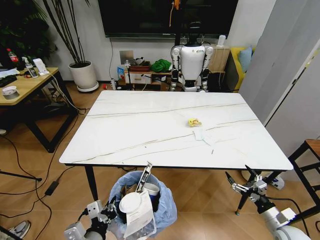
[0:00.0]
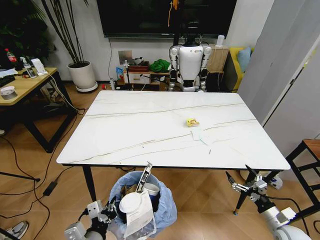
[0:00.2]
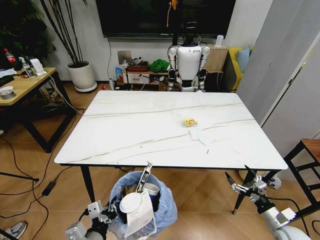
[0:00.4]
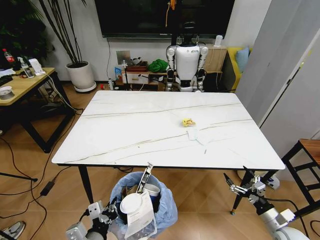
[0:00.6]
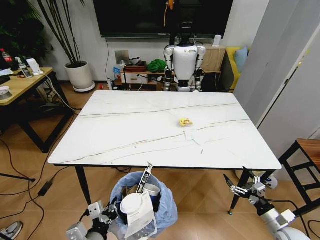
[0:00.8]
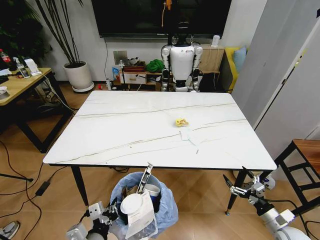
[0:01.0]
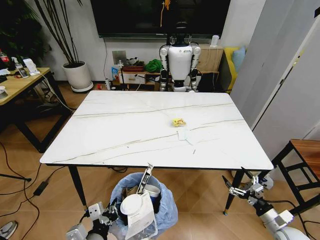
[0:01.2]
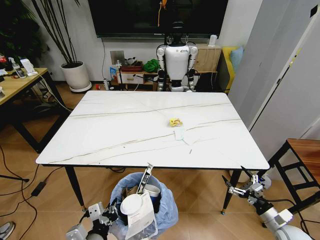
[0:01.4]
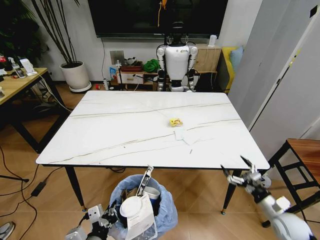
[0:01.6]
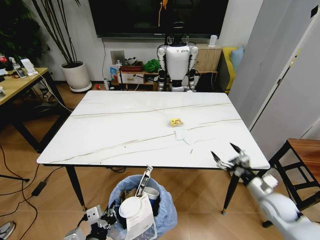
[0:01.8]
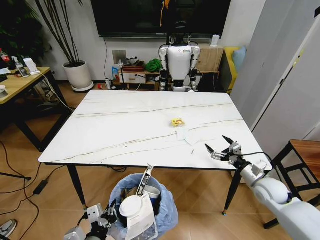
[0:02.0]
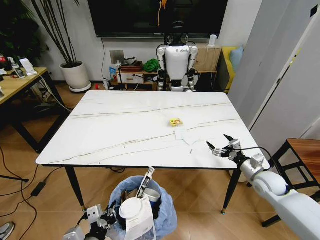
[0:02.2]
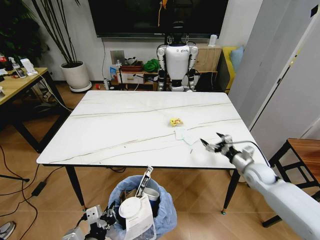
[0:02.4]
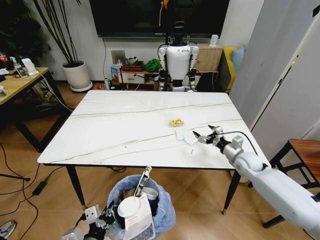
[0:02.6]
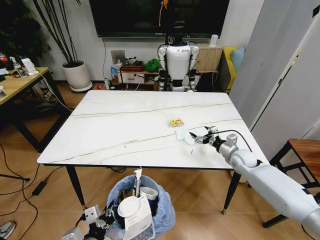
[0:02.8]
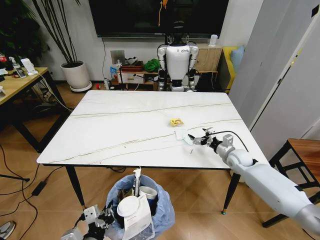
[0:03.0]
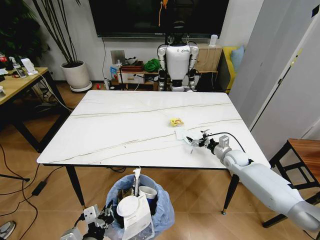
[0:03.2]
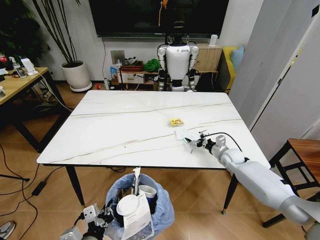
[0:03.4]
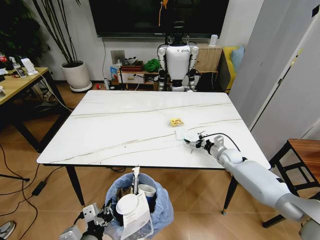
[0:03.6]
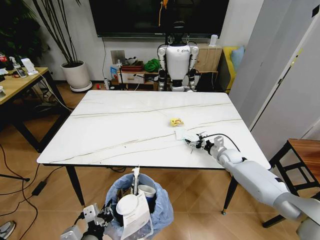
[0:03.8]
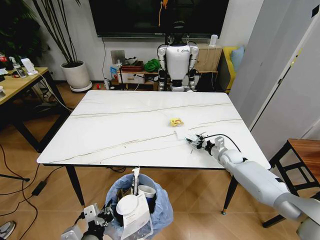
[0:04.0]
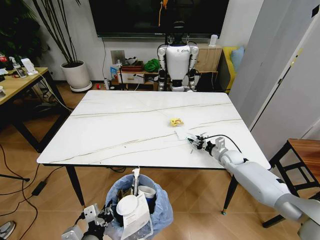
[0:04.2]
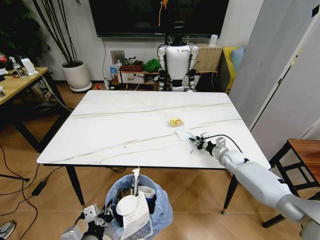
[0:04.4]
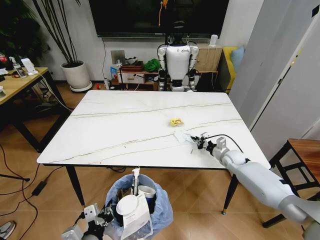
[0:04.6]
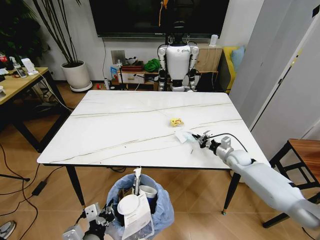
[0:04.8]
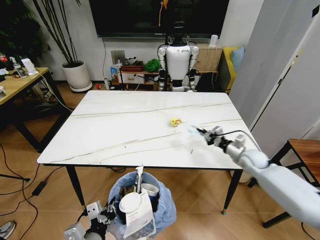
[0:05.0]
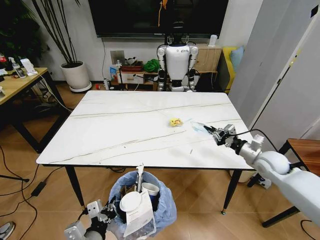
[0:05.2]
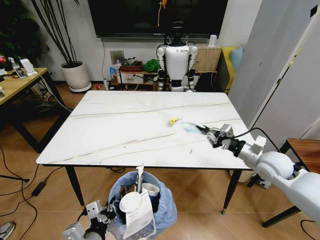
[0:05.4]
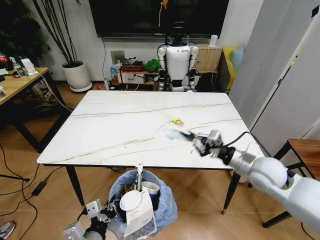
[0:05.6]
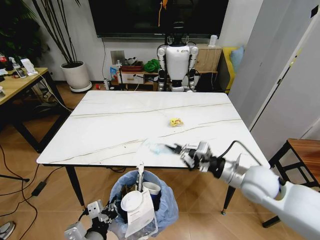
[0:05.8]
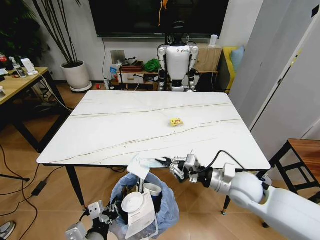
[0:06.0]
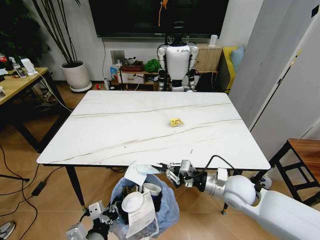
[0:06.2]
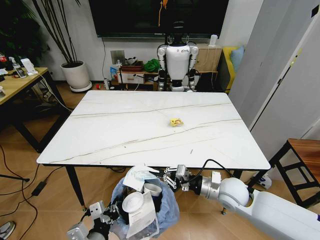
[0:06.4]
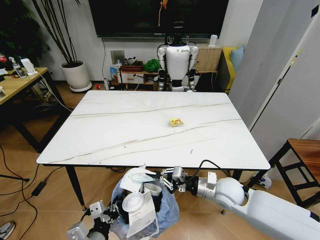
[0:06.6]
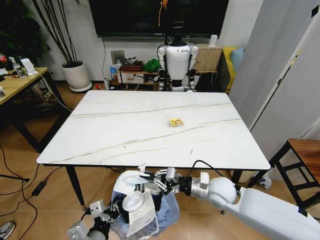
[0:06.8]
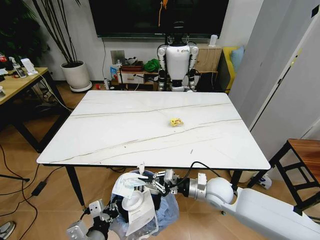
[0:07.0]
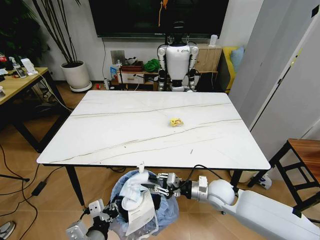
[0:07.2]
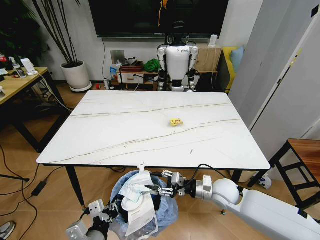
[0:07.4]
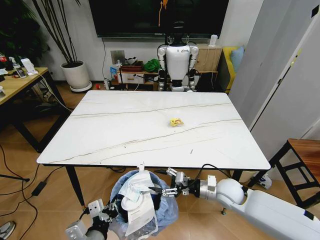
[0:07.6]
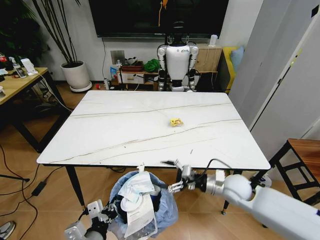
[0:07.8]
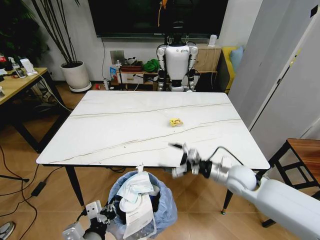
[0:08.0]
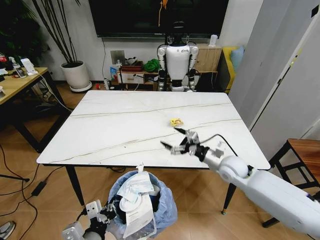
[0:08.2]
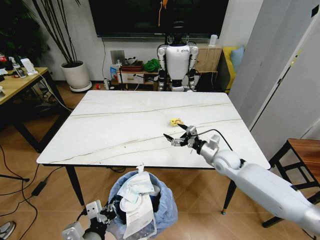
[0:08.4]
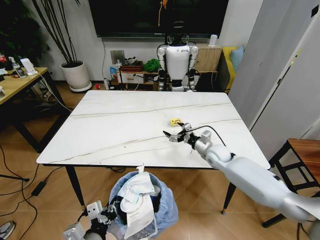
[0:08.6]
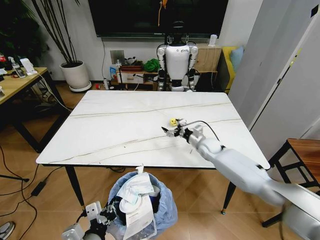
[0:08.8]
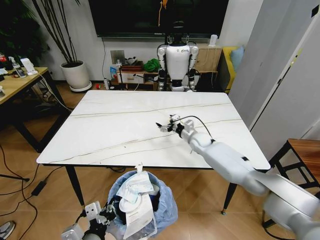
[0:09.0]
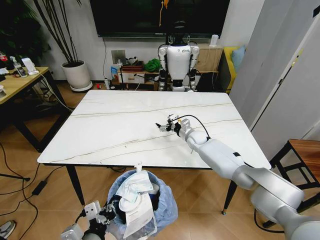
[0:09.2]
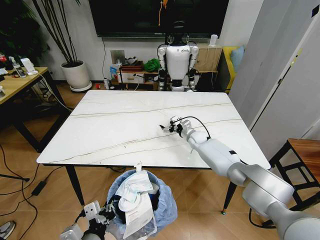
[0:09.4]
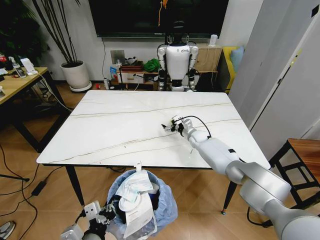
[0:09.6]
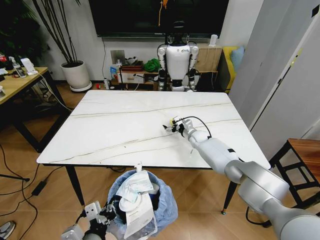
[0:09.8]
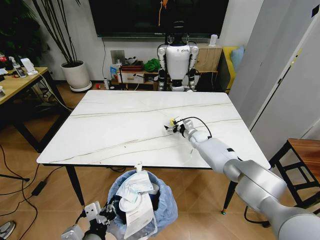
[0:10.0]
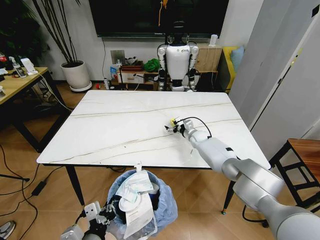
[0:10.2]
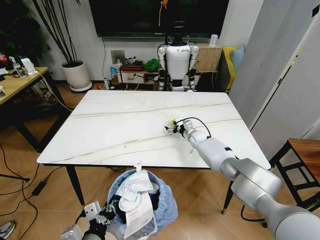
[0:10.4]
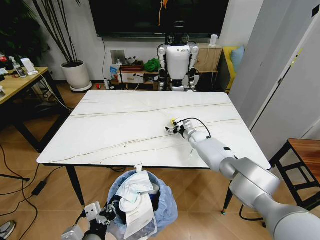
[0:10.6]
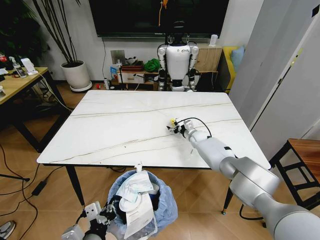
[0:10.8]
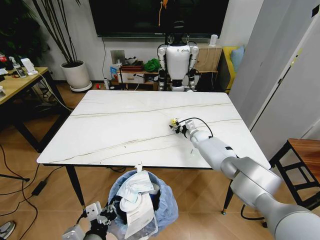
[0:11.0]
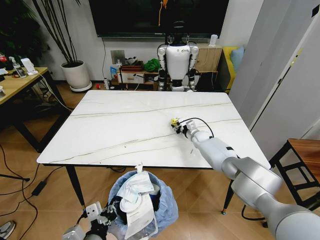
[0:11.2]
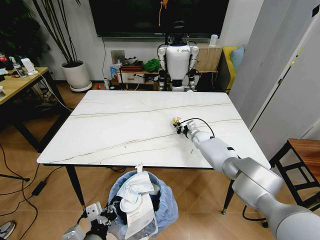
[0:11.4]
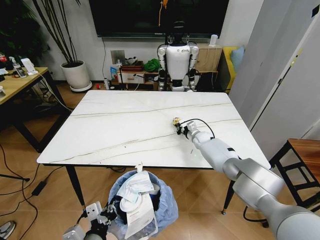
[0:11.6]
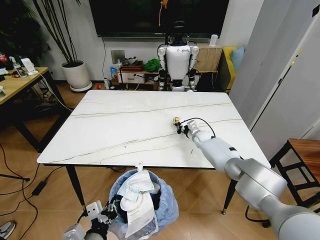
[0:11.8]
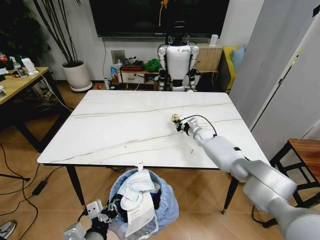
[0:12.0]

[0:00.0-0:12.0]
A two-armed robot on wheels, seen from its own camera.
Task of the whole recording: Pick up the trash bin and place the trash from the table into it.
0:01.6 to 0:03.0: The right gripper goes about 30 cm forward and to the left.
0:03.0 to 0:04.4: The right gripper shifts by approximately 5 cm, and closes its fingers.
0:04.4 to 0:06.0: The right gripper heads backward, upward and to the left, covering approximately 25 cm.
0:06.0 to 0:07.6: The right gripper moves downward, about 10 cm, and opens.
0:07.6 to 0:09.0: The right gripper heads forward, covering some 25 cm, and opens its fingers.
0:09.0 to 0:10.4: The right gripper shifts by some 5 cm.
0:10.4 to 0:12.0: The right gripper closes.

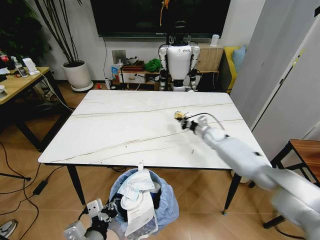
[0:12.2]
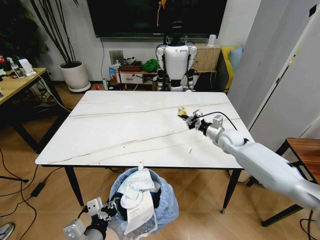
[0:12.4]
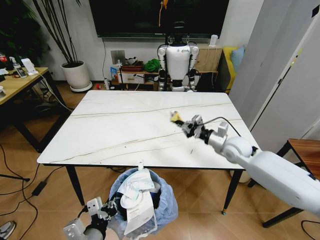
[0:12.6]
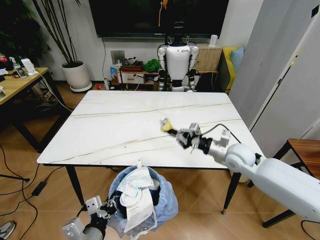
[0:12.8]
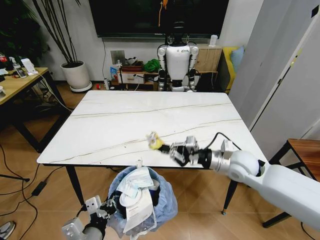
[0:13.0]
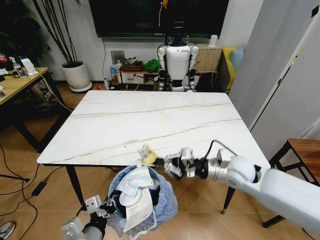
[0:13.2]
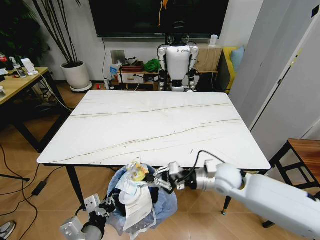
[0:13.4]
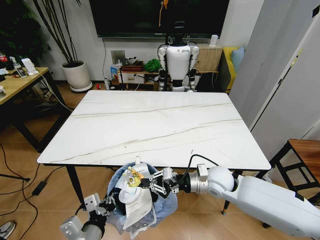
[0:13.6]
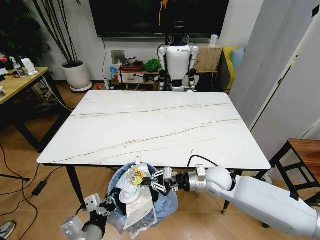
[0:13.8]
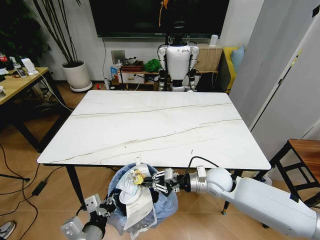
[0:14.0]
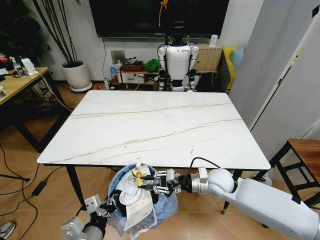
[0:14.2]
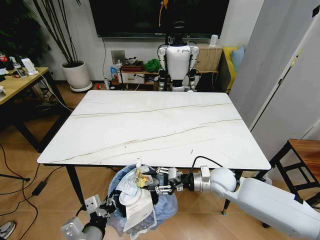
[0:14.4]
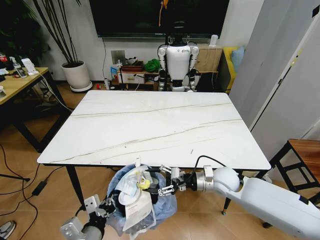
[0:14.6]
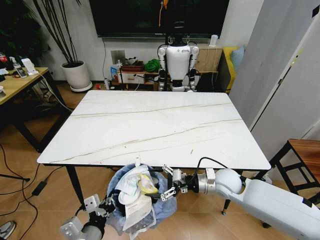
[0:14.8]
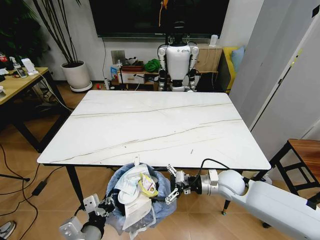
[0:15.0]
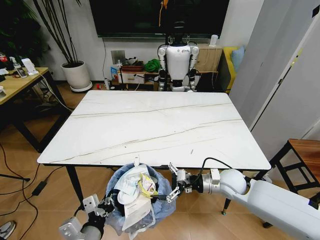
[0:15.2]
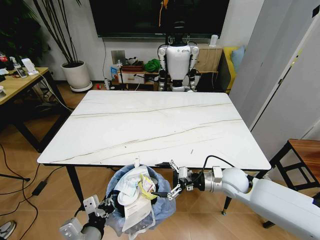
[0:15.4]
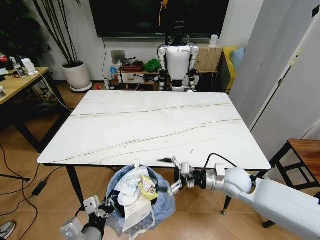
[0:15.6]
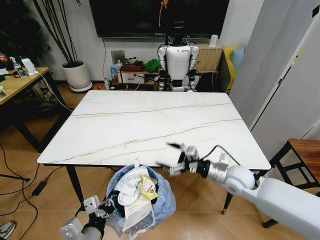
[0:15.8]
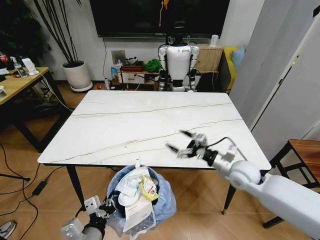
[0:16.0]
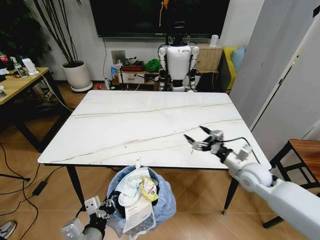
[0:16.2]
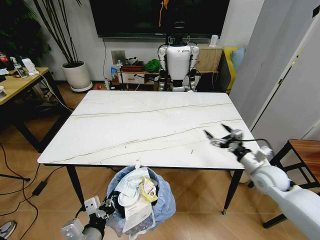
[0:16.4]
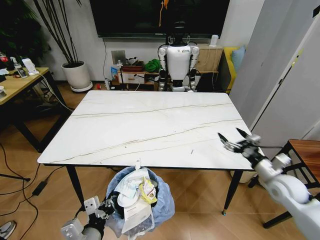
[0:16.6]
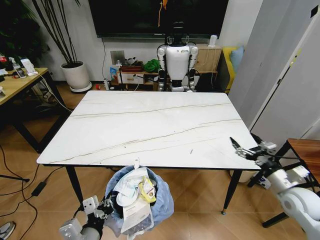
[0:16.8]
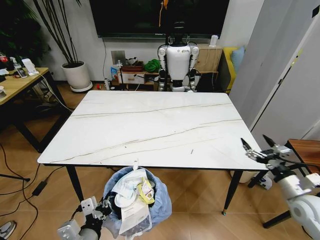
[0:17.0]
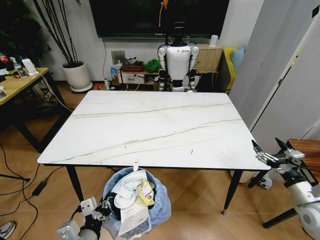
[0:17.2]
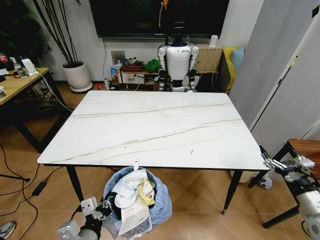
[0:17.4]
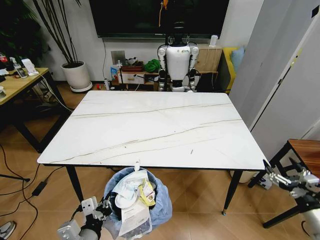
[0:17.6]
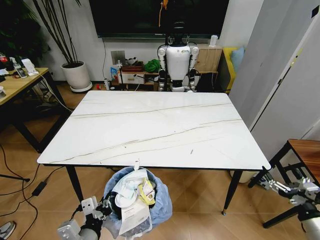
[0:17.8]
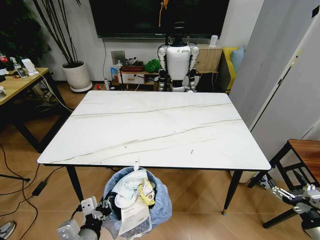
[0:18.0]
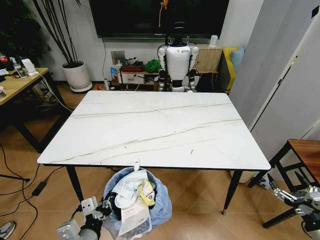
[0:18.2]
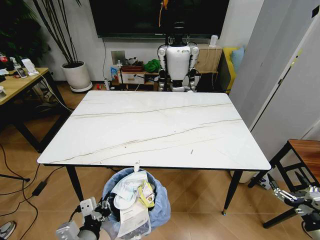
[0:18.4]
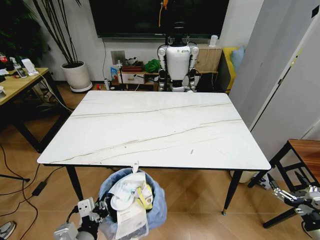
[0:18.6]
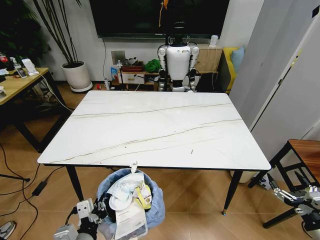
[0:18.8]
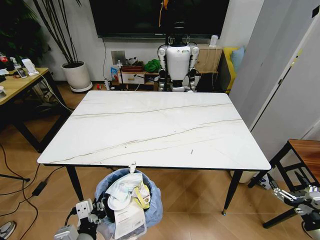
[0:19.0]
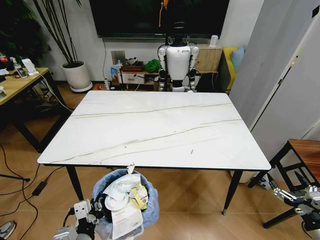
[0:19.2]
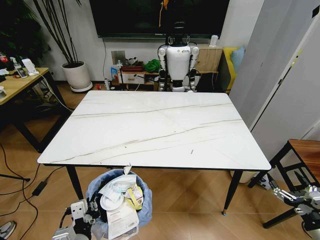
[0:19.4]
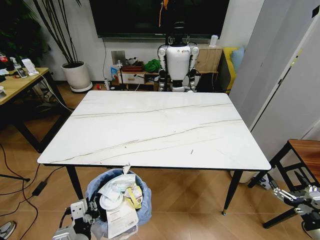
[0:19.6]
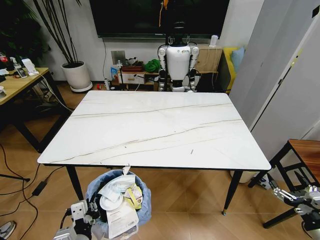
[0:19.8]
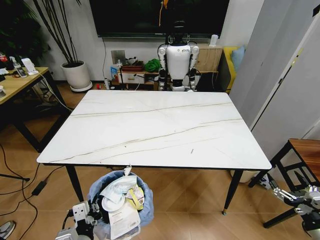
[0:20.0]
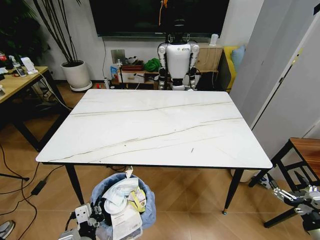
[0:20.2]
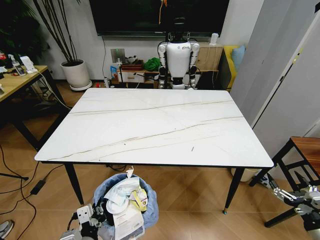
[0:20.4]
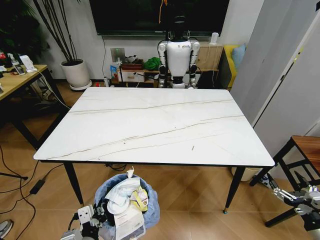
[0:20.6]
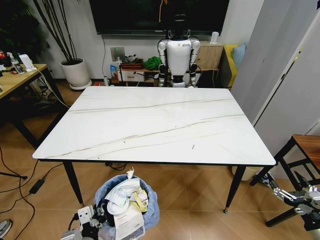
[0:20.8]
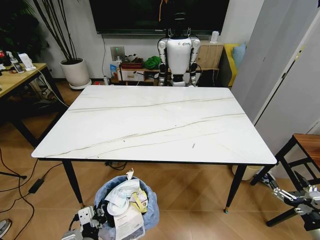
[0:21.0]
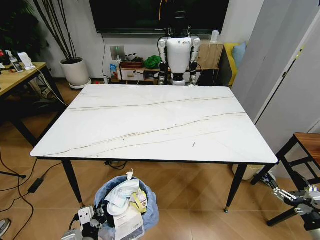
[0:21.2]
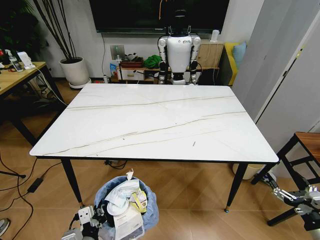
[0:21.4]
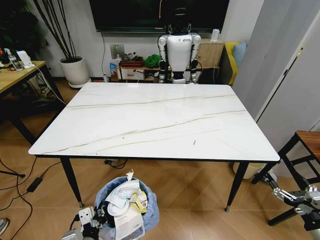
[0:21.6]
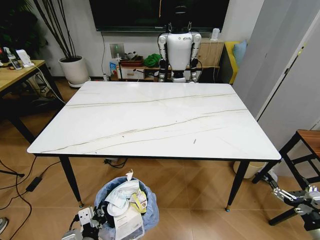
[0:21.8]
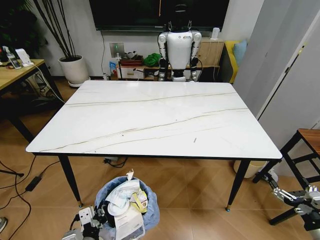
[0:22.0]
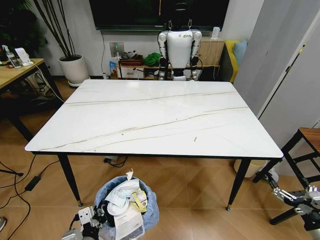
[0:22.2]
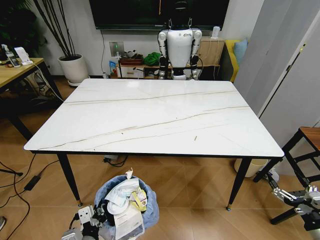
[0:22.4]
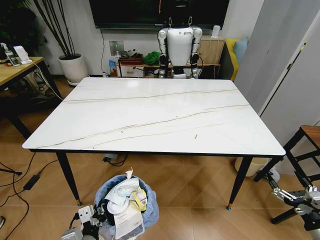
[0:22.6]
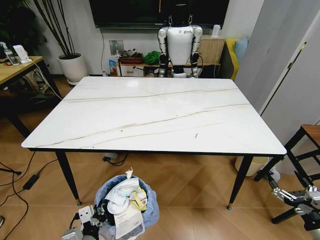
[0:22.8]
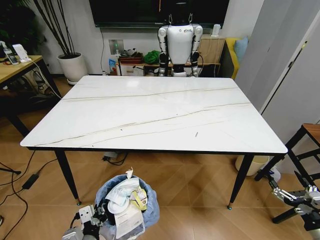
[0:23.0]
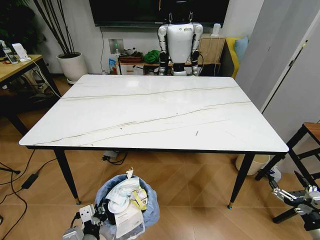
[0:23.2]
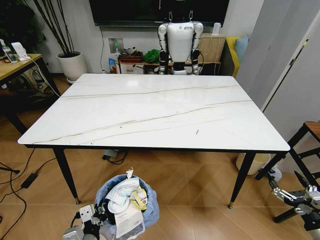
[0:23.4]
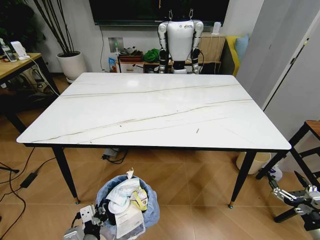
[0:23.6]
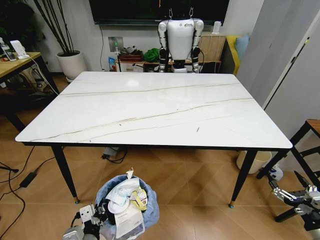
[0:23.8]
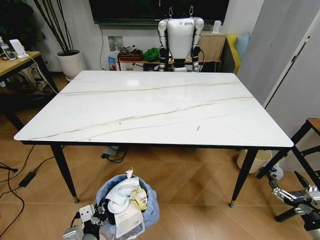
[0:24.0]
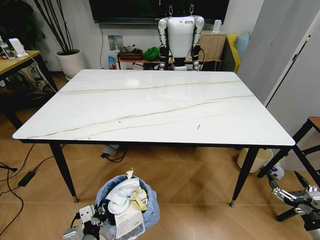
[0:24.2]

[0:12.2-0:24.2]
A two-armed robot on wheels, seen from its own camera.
Task of the whole recording: Pick up the trash bin and place the trash from the table into it.
0:12.2 to 0:13.8: The right gripper goes approximately 25 cm backward.
0:13.8 to 0:15.2: The right gripper shifts by roughly 5 cm, and opens up.
0:15.2 to 0:16.6: The right gripper is displaced to the right by some 15 cm.
0:16.6 to 0:18.2: The right gripper travels backward and to the right by approximately 25 cm.
0:18.2 to 0:19.8: The grippers stay close to where they were, moving slightly.
